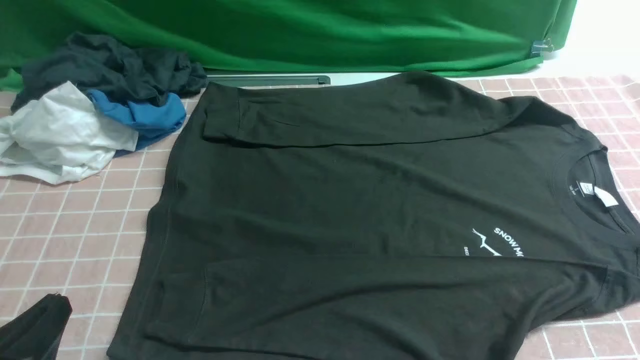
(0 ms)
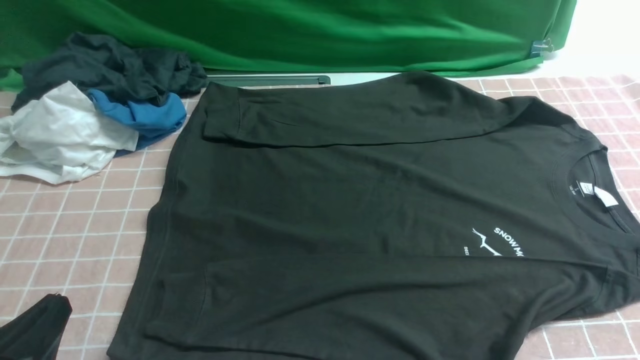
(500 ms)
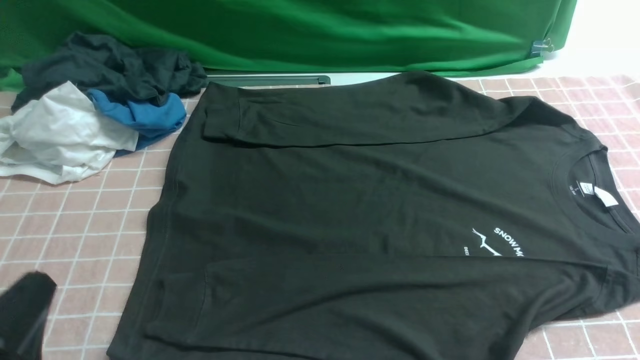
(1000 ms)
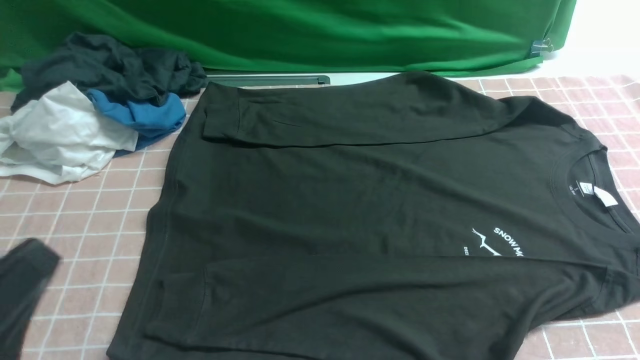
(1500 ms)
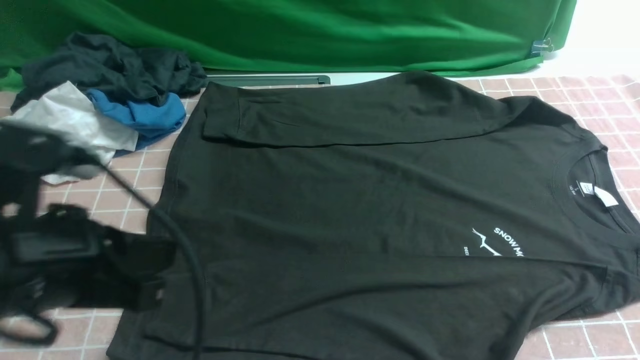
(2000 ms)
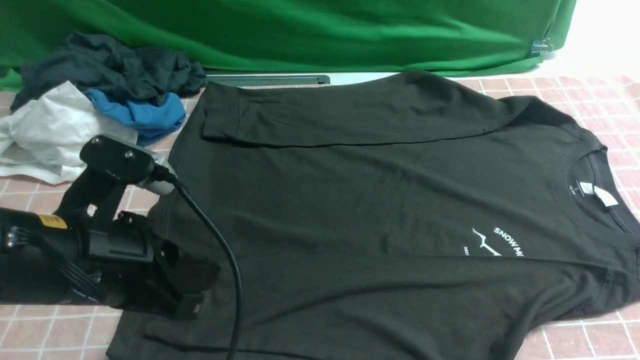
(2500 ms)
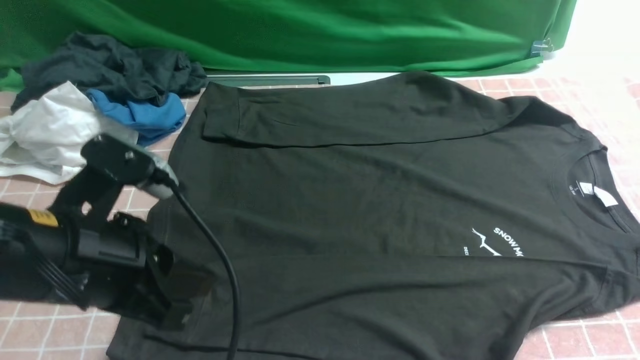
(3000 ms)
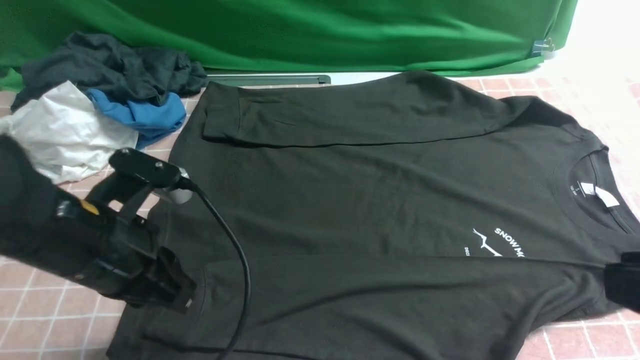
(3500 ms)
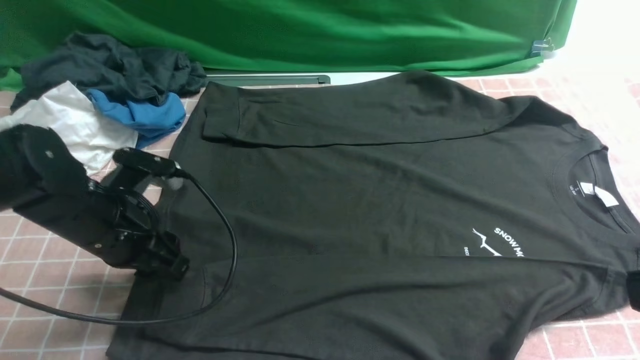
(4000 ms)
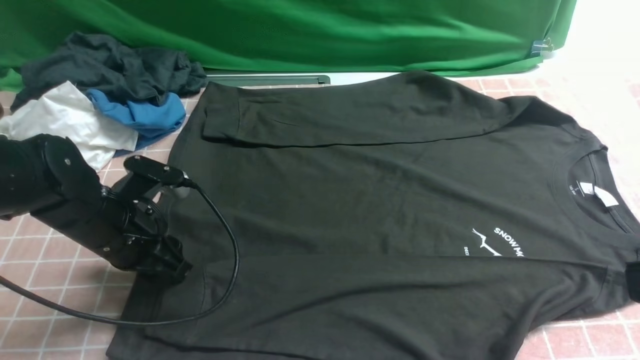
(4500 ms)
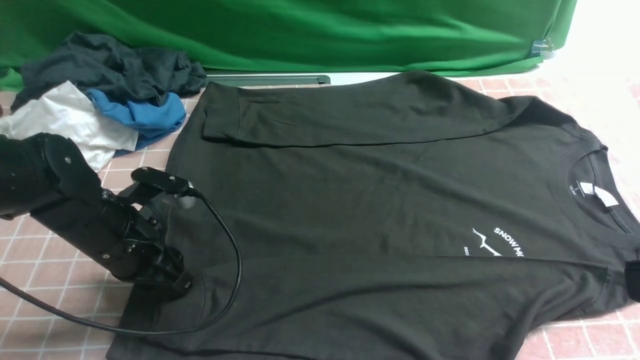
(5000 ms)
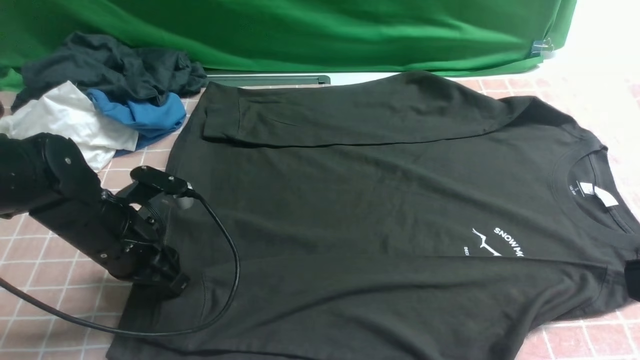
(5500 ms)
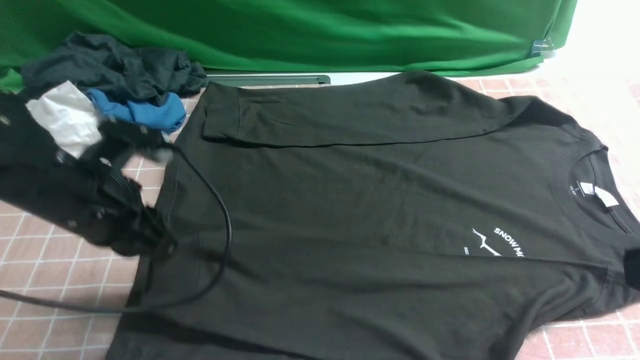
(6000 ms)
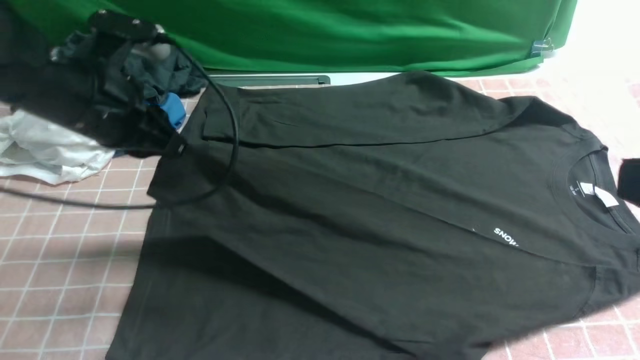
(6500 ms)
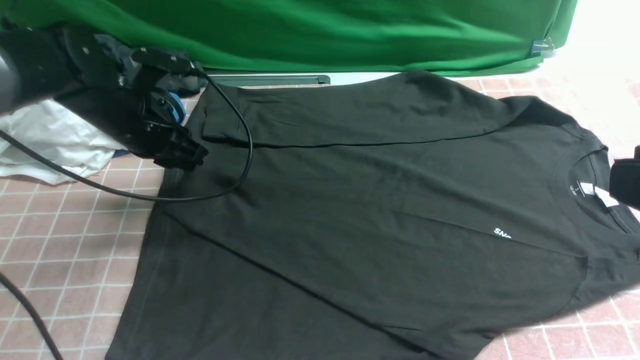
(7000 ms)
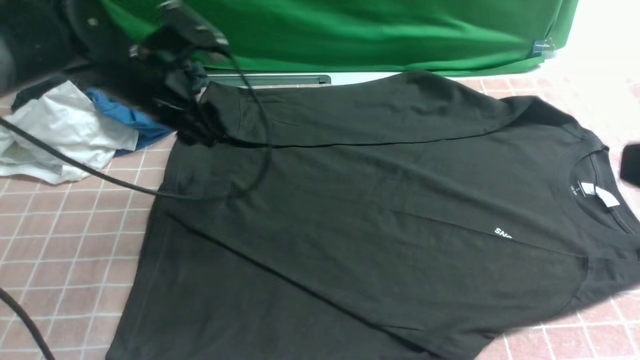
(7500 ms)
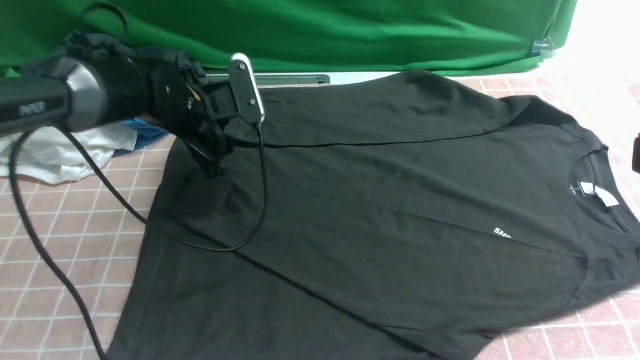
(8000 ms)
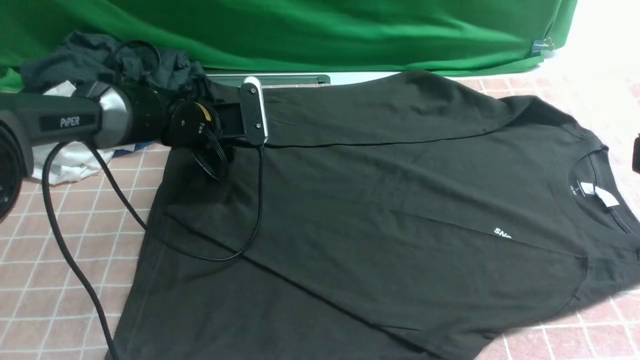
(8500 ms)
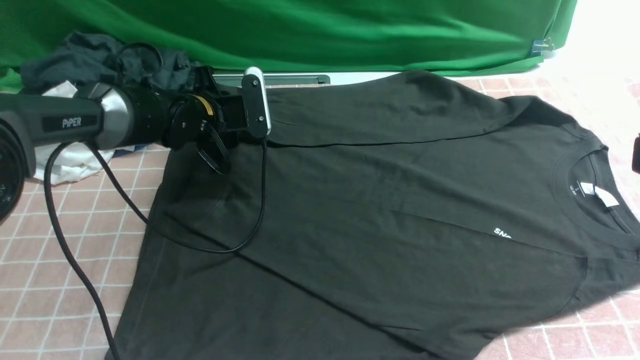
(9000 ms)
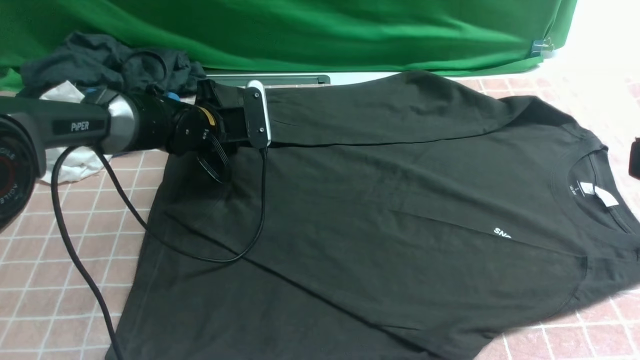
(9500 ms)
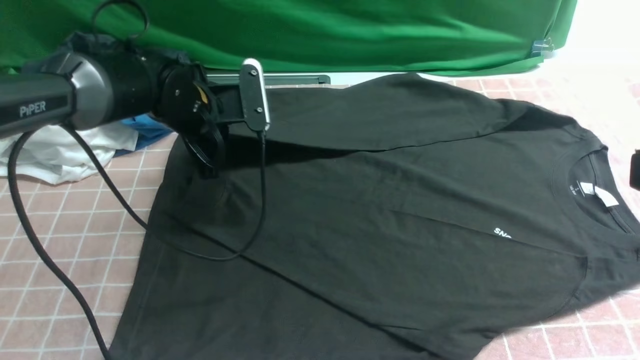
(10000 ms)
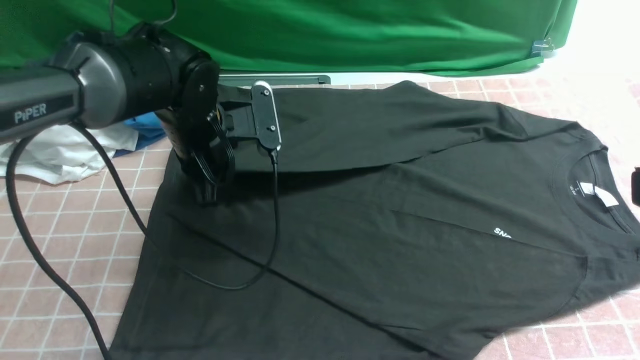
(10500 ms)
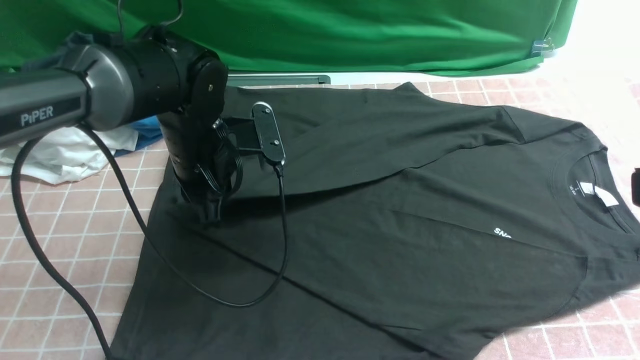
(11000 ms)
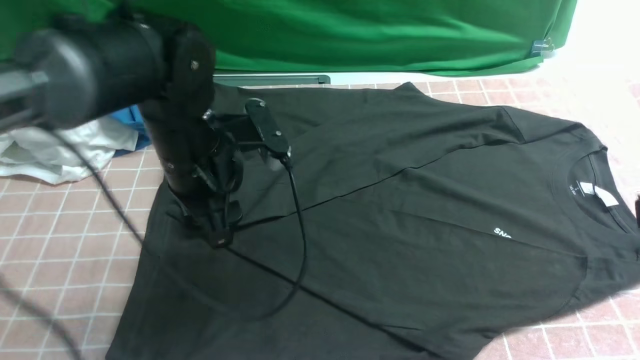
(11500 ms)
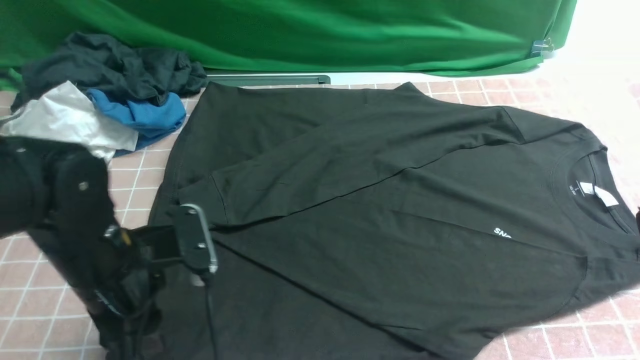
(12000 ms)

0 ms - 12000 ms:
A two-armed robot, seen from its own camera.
Step, 0 ms - 5500 ms: use the left arm to clamp the cuff closest to it.
Step, 6000 ms - 7000 ms: use the left arm to drag and place the cuff at the centered position on the left edge of the fabric.
Step, 7500 ms - 9500 ms: use the left arm to clamp the cuff farthest from it.
Step, 10000 ms - 11000 ms: use the left arm to drag and drop the cuff onto the cuff closest to the left arm.
0 ms - 2000 ms: The left gripper moves upward, forward and to the right, about 15 cm.
2000 ms - 4000 ms: The left gripper travels forward and downward by about 20 cm, and opens its fingers. Meanwhile the right gripper shifts roughly 20 cm upward.
4000 ms - 6000 ms: The left gripper is displaced upward by roughly 5 cm, and closes its fingers.
6000 ms - 8000 ms: The left gripper moves forward, about 15 cm, and opens its fingers.
8000 ms - 10000 ms: The left gripper closes its fingers.
10000 ms - 12000 ms: The left gripper is displaced backward by about 20 cm, and opens.

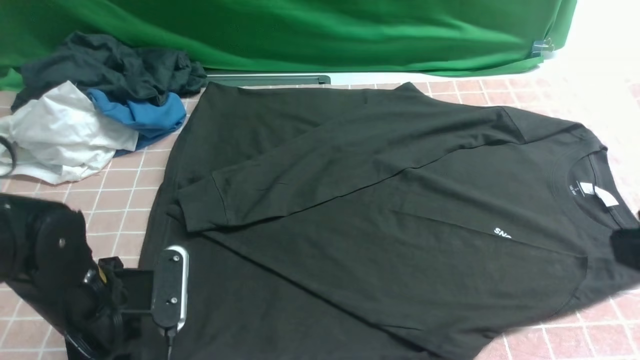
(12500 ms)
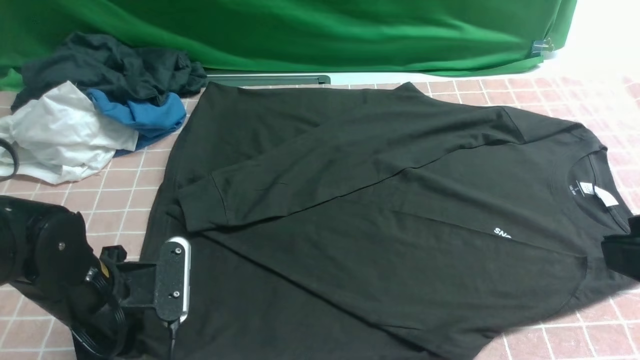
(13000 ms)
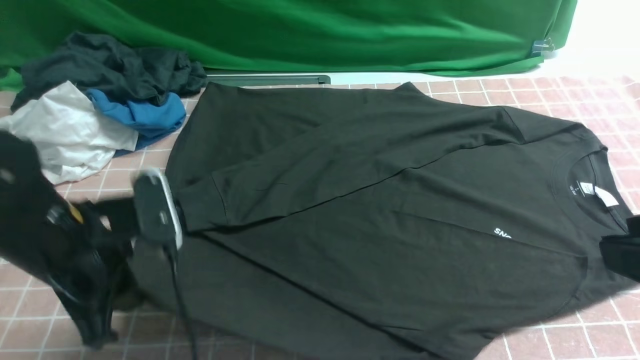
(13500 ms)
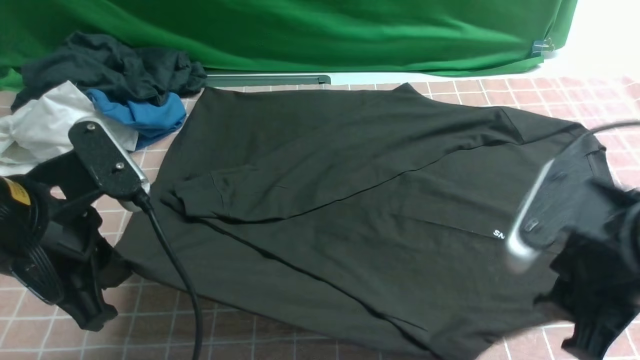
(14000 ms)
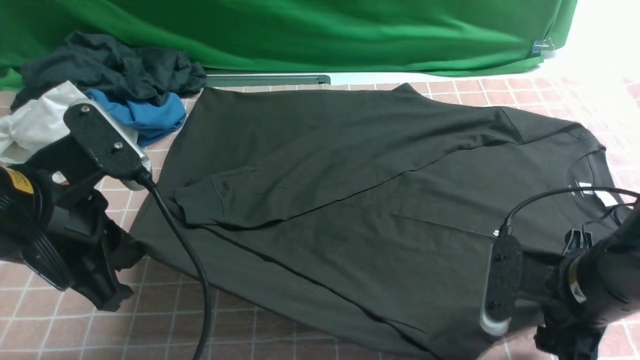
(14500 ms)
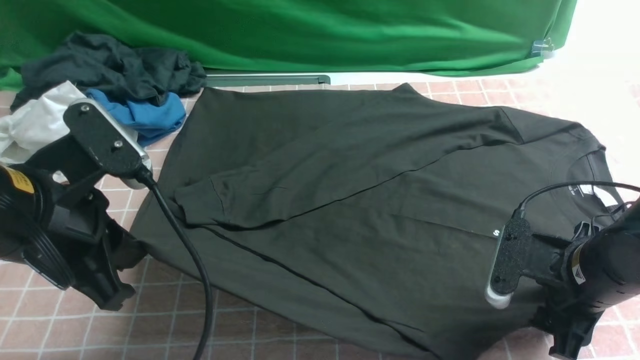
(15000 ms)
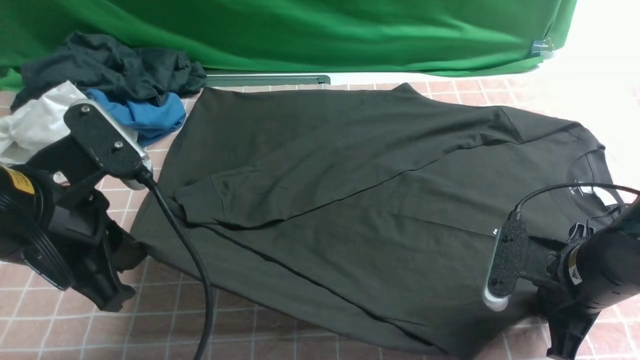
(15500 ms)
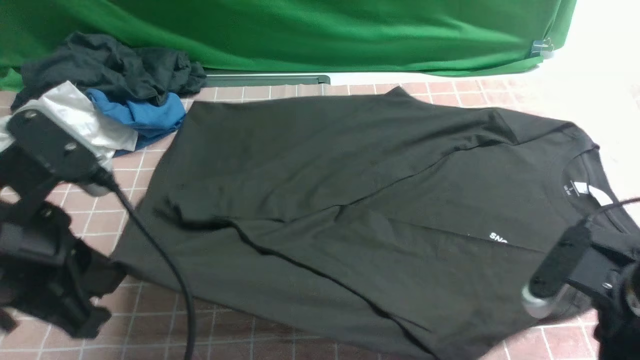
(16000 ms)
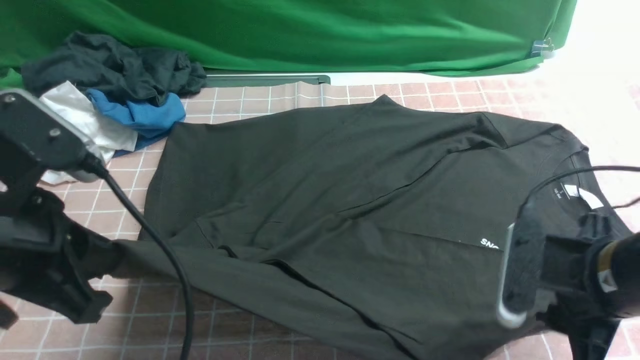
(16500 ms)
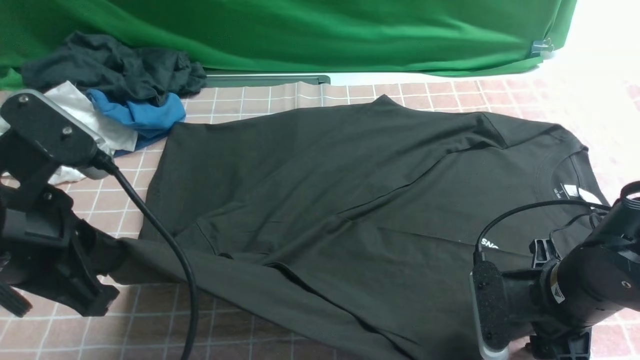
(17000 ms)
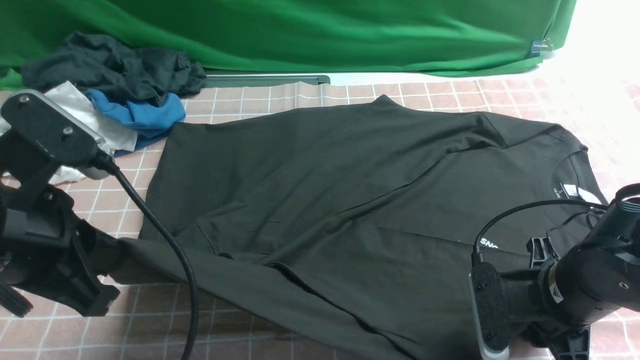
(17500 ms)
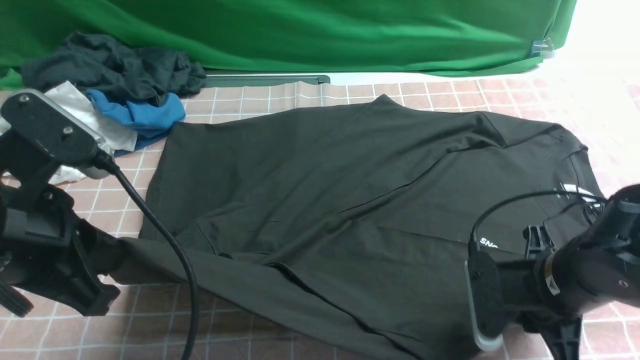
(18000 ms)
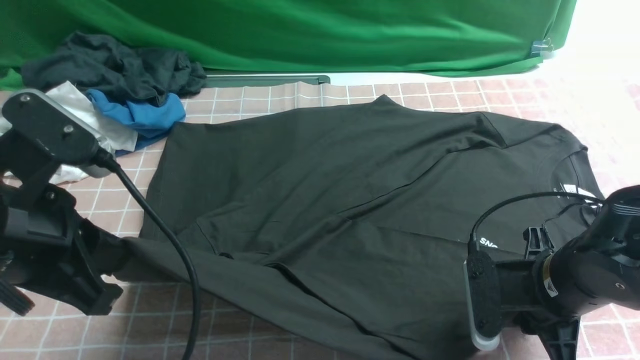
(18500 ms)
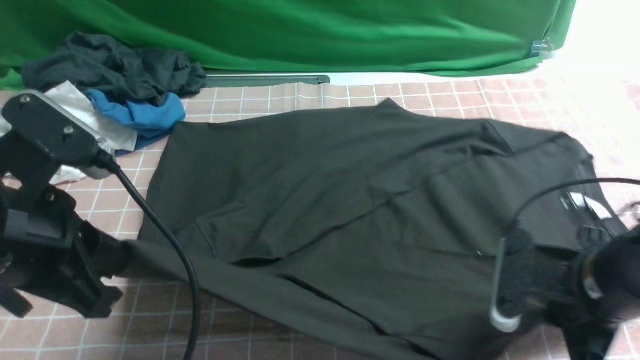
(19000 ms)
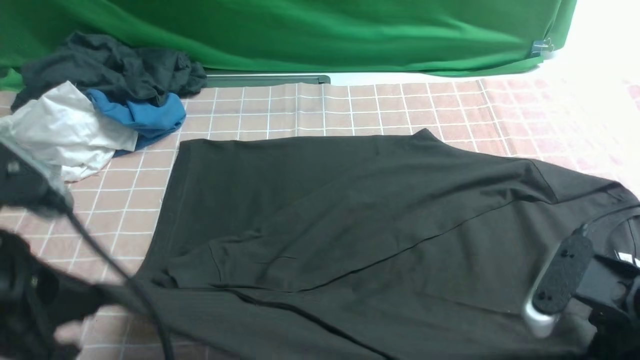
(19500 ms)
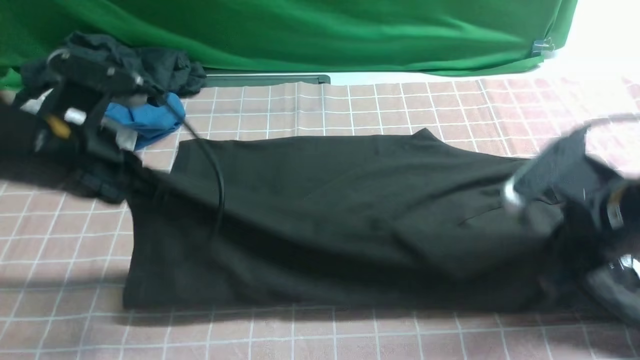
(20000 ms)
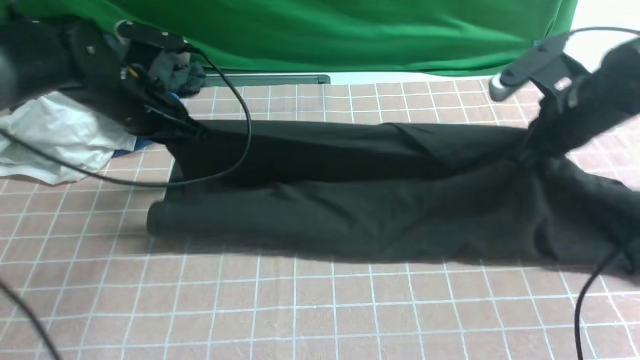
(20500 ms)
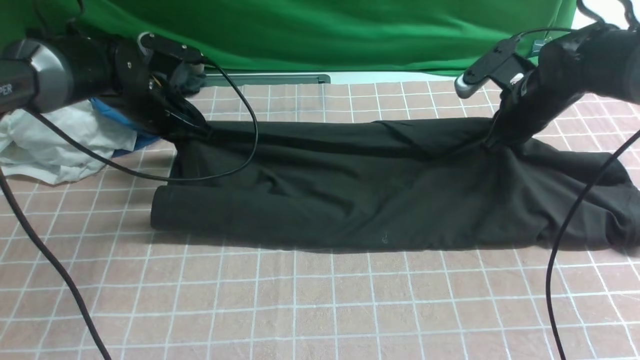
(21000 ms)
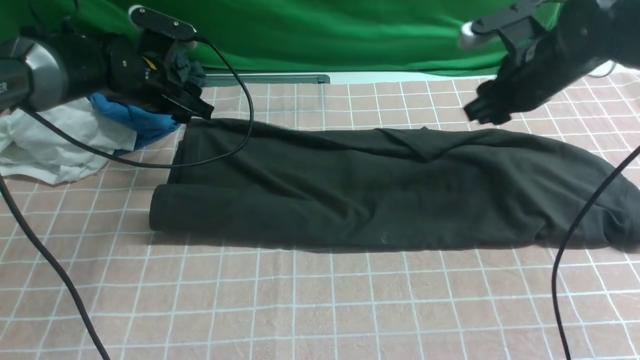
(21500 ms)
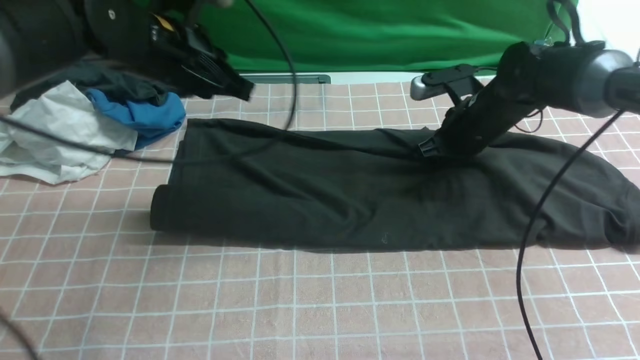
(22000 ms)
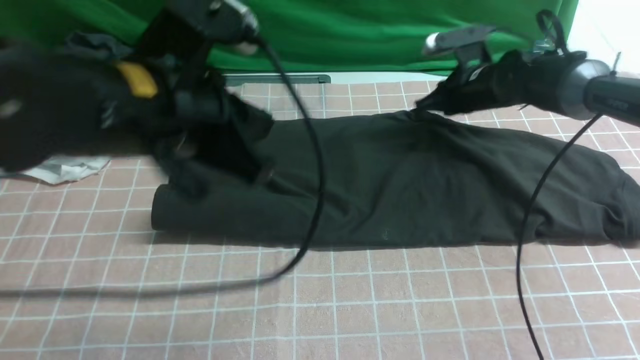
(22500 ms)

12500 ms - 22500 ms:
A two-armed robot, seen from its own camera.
Step, 12500 ms - 18500 ms: use both arms simultaneously to clamp the lower edge of the clothing fabric.
Step, 19000 ms - 21500 ms: use both arms to drag the lower edge of the fabric forward and fold it over the upper edge.
12500 ms - 14500 ms: The right gripper is displaced downward and forward by roughly 20 cm, and opens its fingers; the left gripper is displaced upward by approximately 15 cm, and closes.
14500 ms - 16500 ms: The right gripper closes.
16500 ms - 18500 ms: The right gripper shifts by approximately 5 cm.
18500 ms - 20500 ms: The right gripper goes about 15 cm forward and upward; the left gripper heads forward, covering some 25 cm.
20500 ms - 22500 ms: The left gripper goes some 20 cm backward, upward and to the right, and opens, then closes again, while the right gripper heads forward and downward, covering some 15 cm, and opens and closes again.
